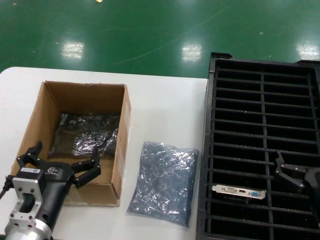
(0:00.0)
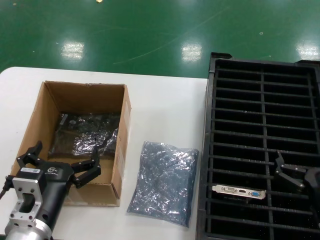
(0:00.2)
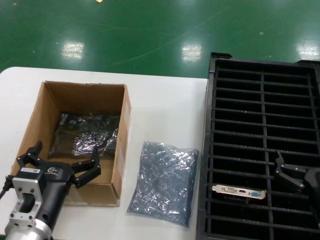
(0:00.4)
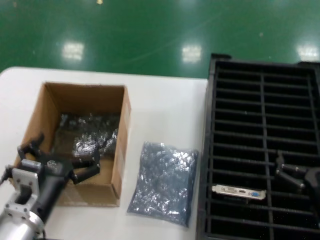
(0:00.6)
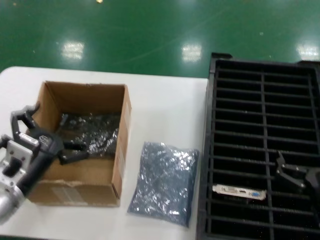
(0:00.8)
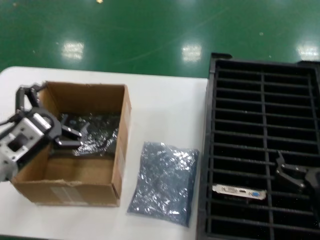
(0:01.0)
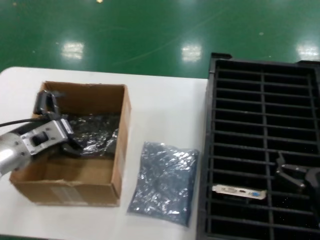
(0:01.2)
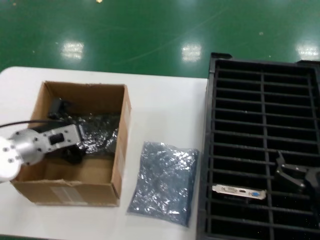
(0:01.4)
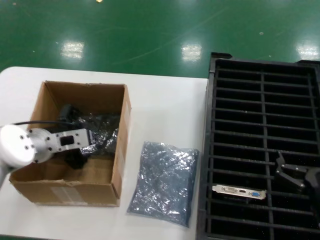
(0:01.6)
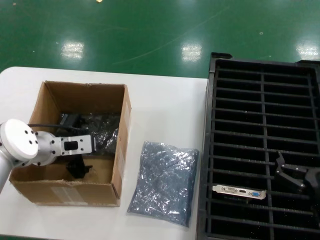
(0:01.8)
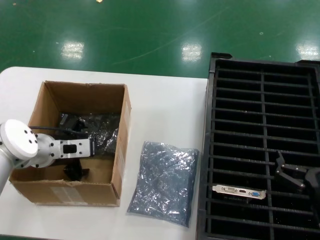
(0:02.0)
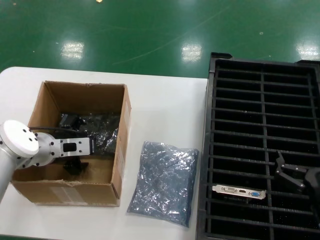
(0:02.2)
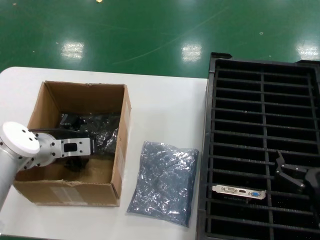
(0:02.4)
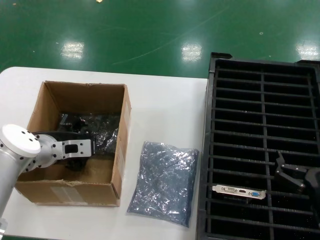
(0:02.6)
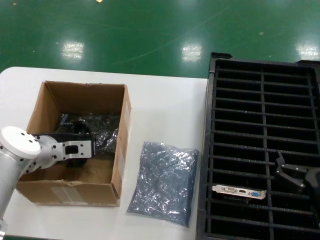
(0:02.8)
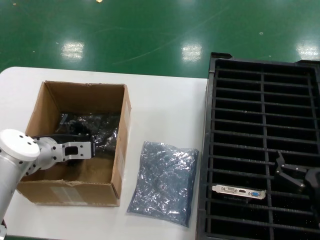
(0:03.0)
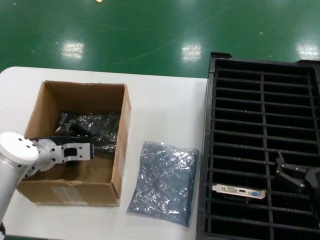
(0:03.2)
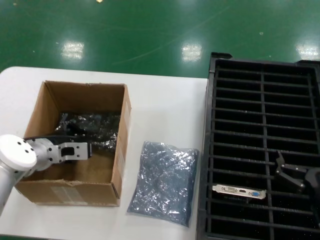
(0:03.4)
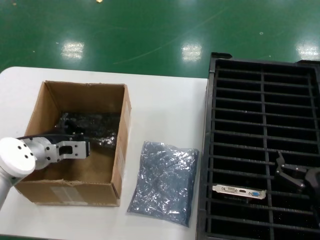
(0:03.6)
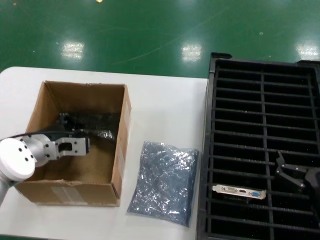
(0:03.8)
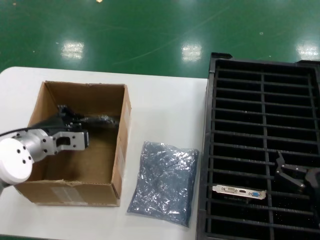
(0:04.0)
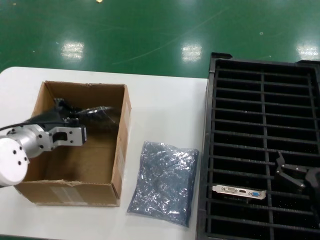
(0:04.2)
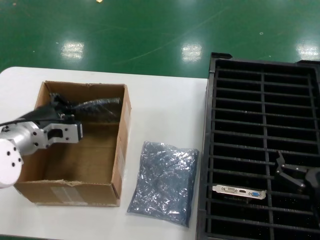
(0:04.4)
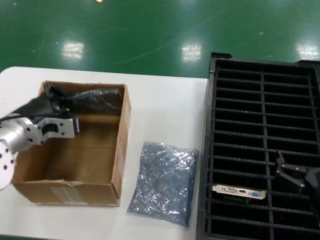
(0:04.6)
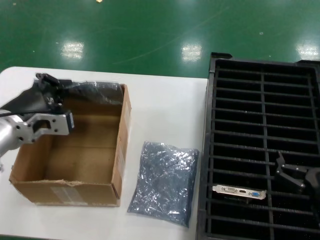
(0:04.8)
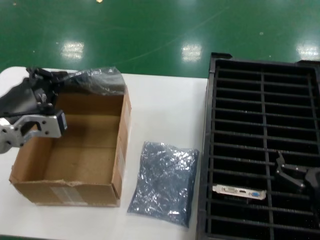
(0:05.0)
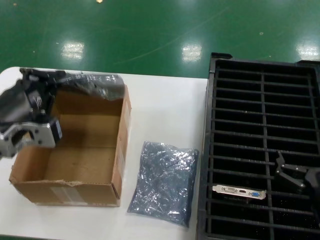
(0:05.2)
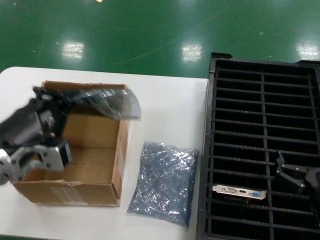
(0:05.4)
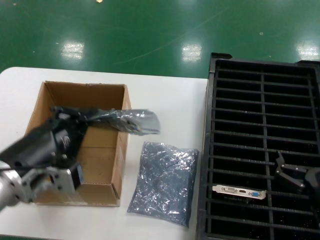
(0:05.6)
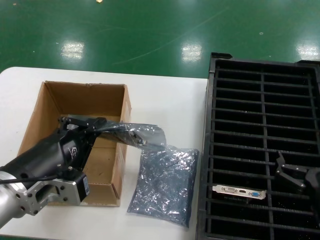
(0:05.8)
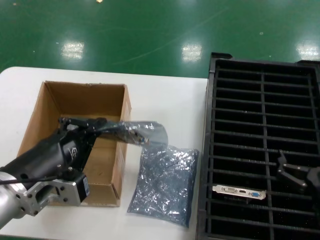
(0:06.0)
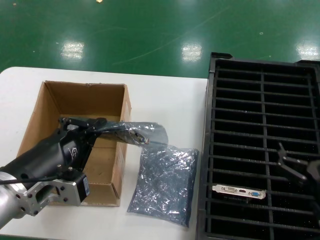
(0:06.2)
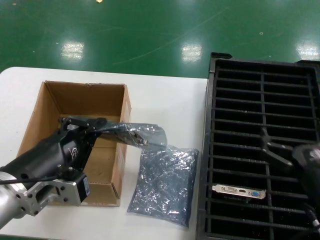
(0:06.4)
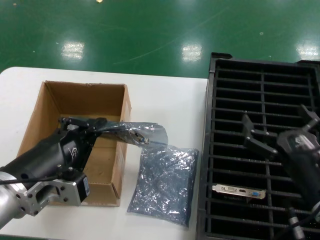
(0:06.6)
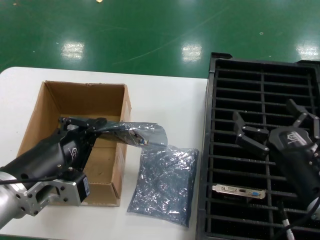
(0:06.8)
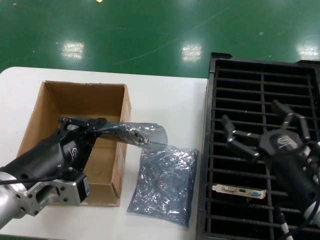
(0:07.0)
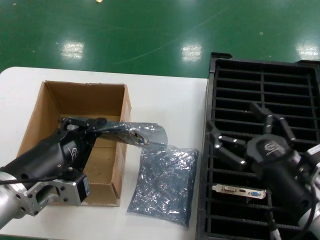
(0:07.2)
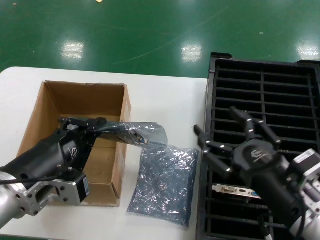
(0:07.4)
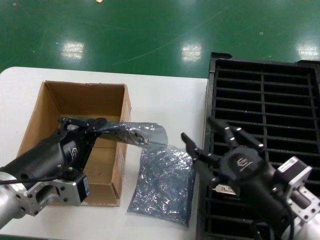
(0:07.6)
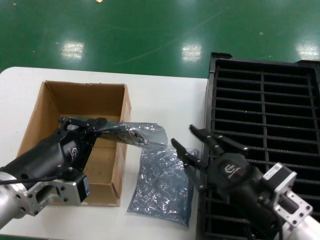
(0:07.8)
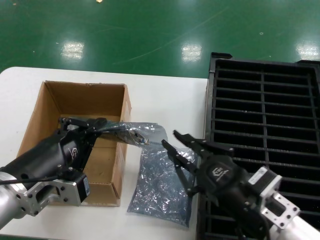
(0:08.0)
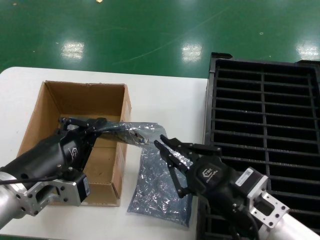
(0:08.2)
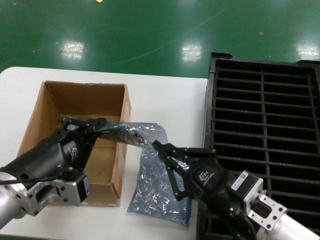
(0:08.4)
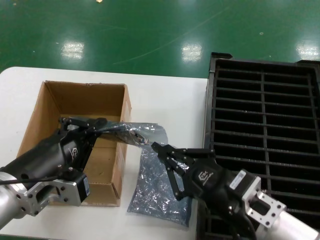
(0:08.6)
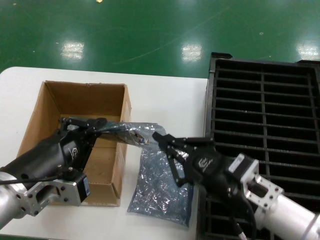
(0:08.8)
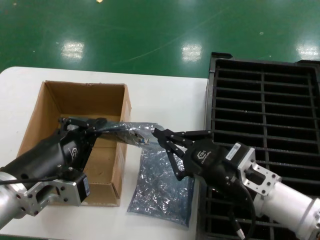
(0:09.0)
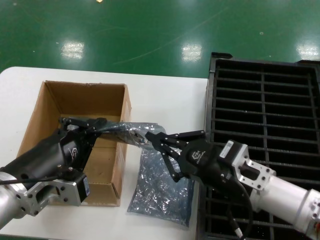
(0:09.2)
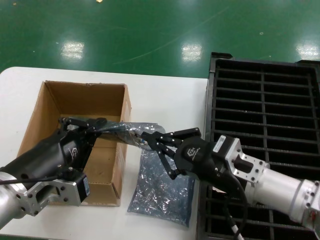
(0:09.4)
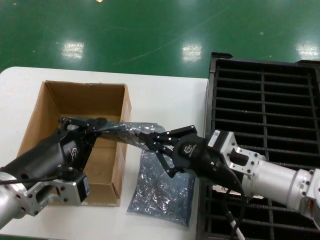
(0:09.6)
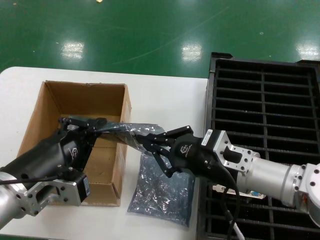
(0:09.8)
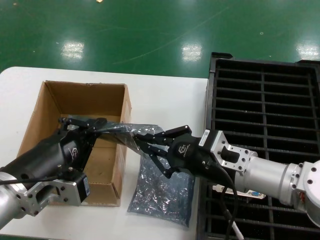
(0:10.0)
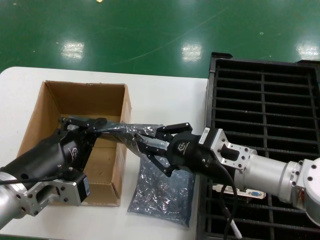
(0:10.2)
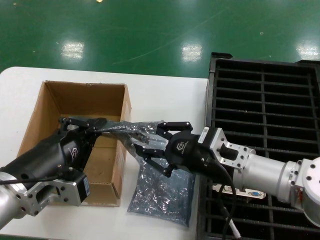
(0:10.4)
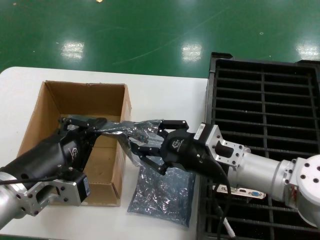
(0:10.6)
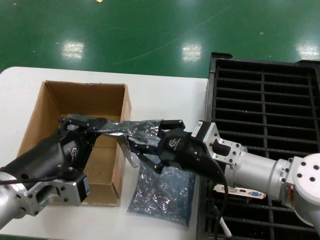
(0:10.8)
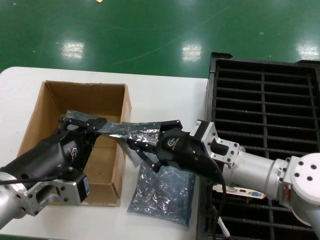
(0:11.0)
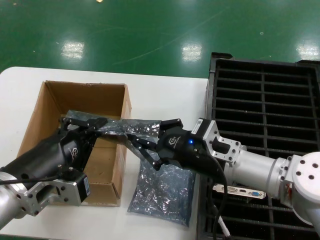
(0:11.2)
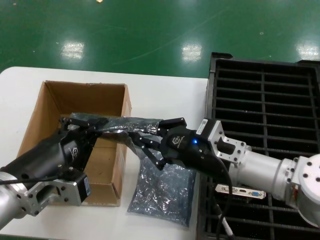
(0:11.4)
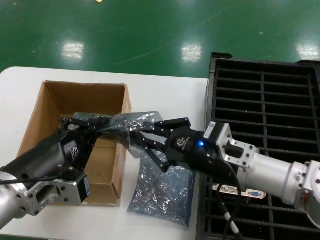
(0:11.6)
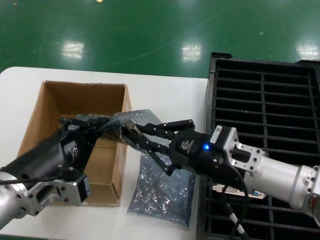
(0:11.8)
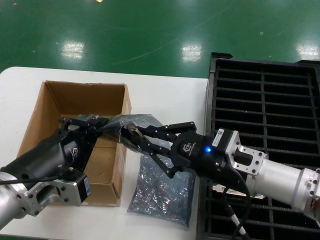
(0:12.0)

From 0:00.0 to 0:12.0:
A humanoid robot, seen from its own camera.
Task of the whole recording: take out graphics card from box remove packaging put into black container.
Step, from 0:00.0 to 0:03.2: Grasp the bag.
Step, from 0:03.4 to 0:05.8: Lift the bag.
From 0:00.0 to 0:01.6: The left hand is displaced forward by some 20 cm.
From 0:01.6 to 0:03.0: There are only small adjustments of the hands.
From 0:03.0 to 0:04.4: The left hand goes about 10 cm upward and backward.
From 0:04.4 to 0:06.0: The left hand heads backward, covering about 20 cm.
From 0:06.0 to 0:07.6: The right hand is displaced to the left and upward by roughly 10 cm.
From 0:07.6 to 0:09.0: The right hand travels forward by some 5 cm.
From 0:09.0 to 0:10.4: The right hand travels forward by roughly 5 cm.
From 0:10.4 to 0:12.0: The hands move only a little.

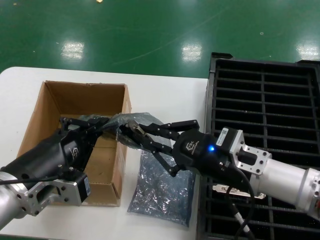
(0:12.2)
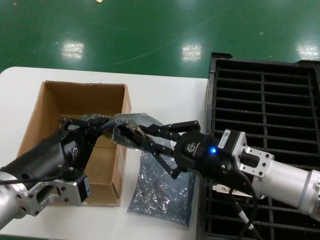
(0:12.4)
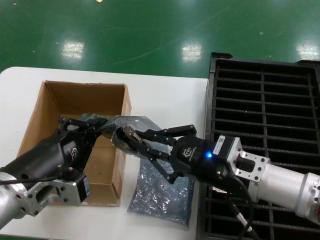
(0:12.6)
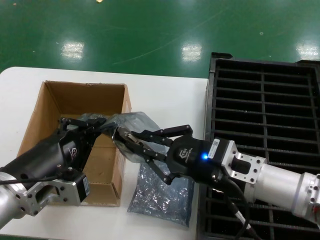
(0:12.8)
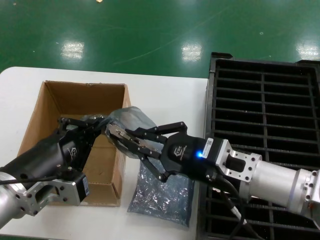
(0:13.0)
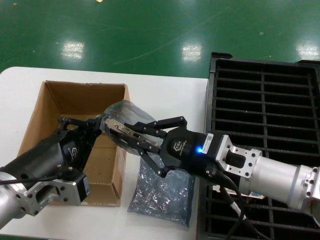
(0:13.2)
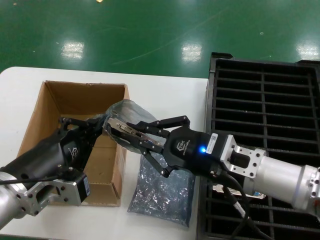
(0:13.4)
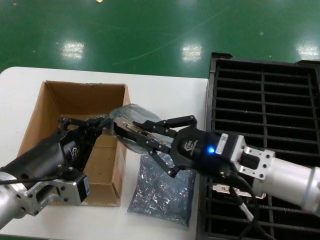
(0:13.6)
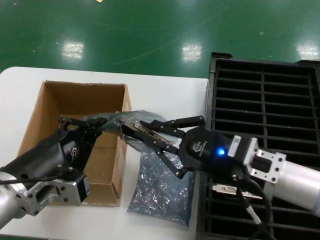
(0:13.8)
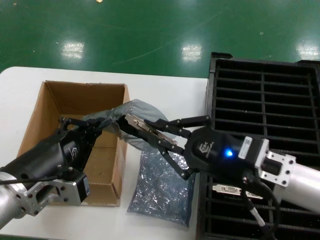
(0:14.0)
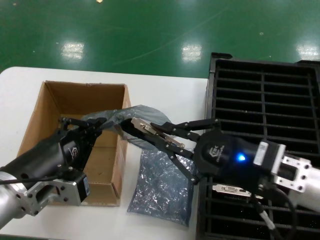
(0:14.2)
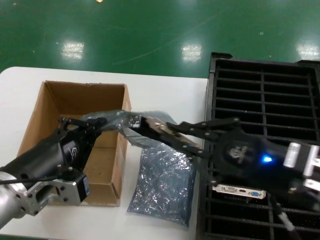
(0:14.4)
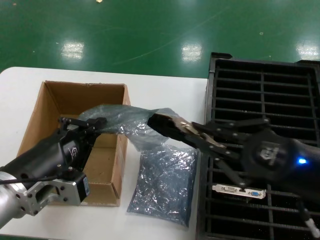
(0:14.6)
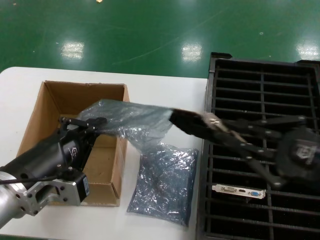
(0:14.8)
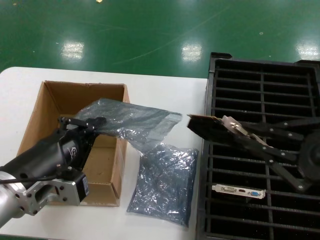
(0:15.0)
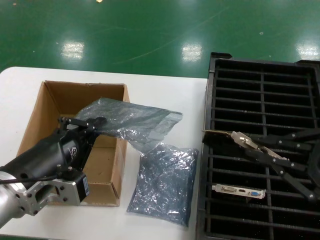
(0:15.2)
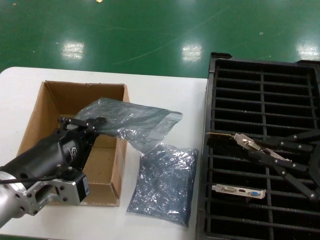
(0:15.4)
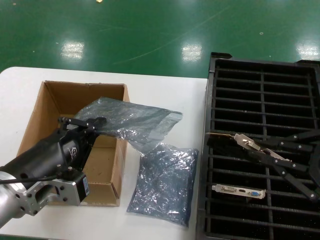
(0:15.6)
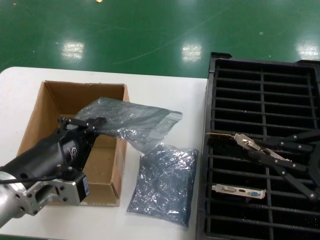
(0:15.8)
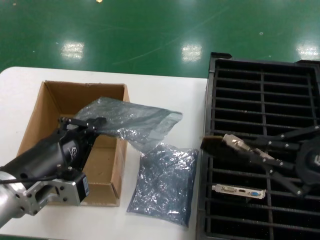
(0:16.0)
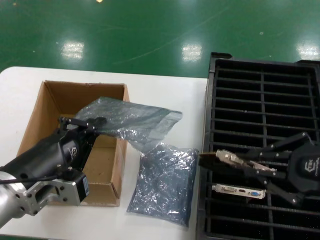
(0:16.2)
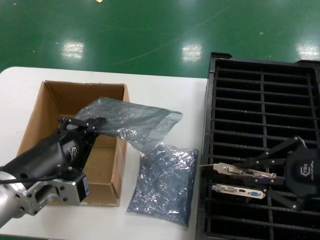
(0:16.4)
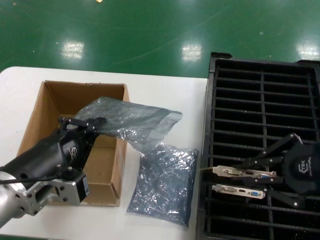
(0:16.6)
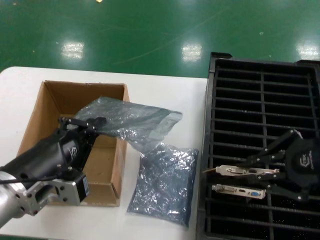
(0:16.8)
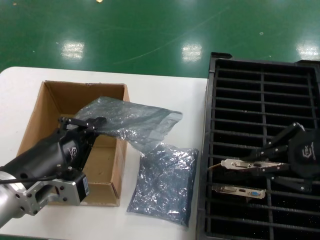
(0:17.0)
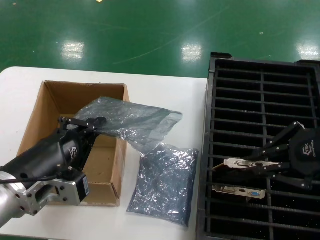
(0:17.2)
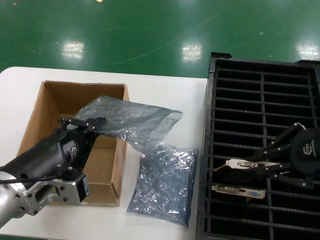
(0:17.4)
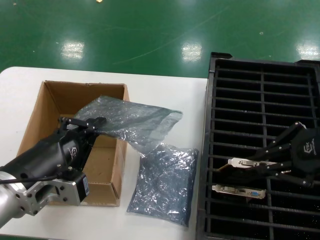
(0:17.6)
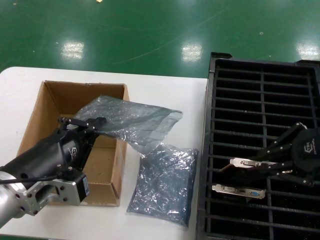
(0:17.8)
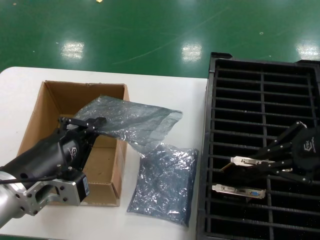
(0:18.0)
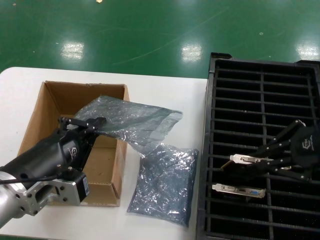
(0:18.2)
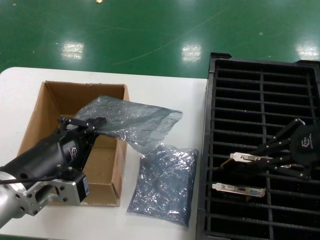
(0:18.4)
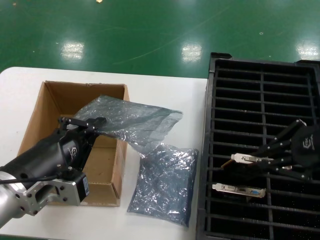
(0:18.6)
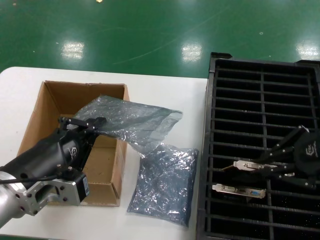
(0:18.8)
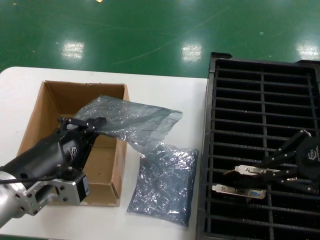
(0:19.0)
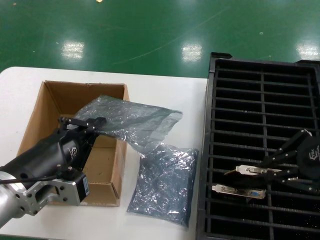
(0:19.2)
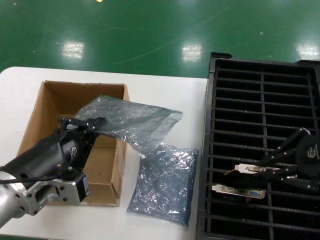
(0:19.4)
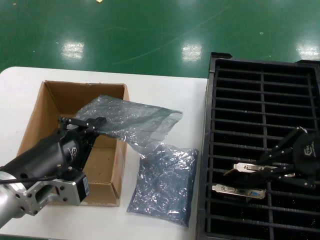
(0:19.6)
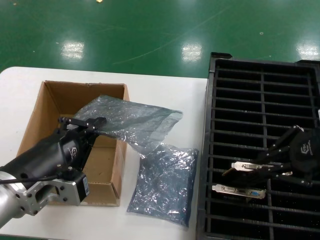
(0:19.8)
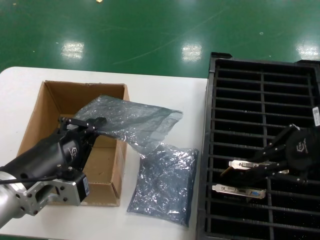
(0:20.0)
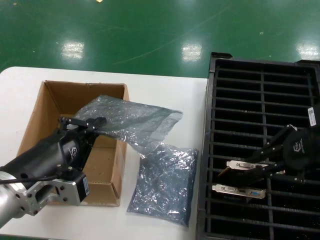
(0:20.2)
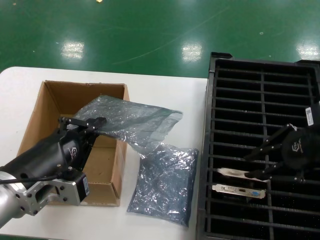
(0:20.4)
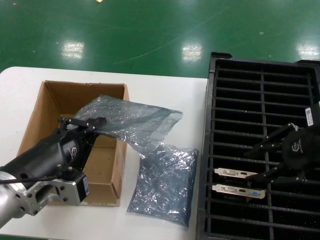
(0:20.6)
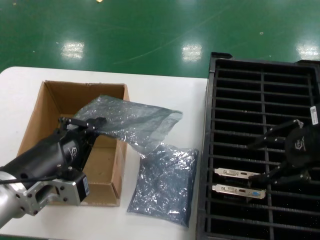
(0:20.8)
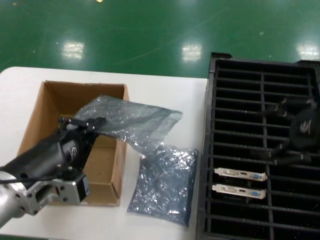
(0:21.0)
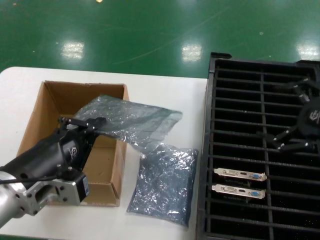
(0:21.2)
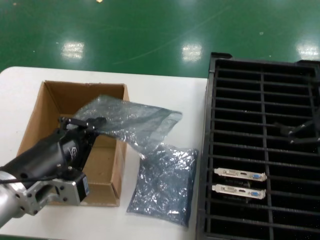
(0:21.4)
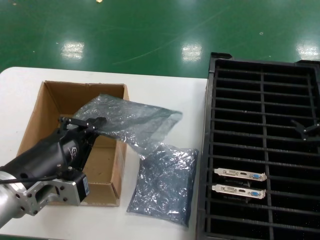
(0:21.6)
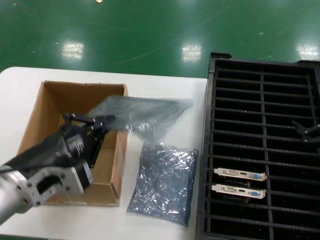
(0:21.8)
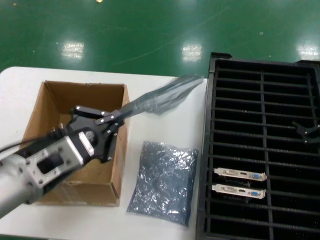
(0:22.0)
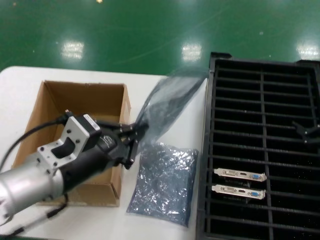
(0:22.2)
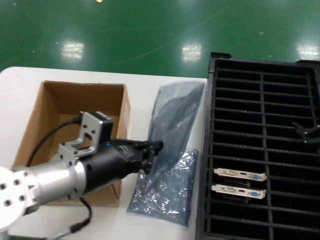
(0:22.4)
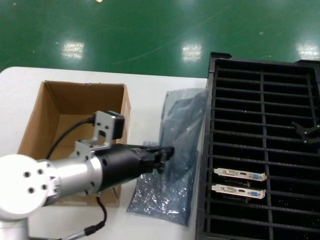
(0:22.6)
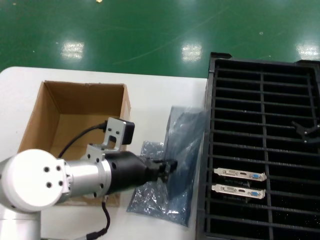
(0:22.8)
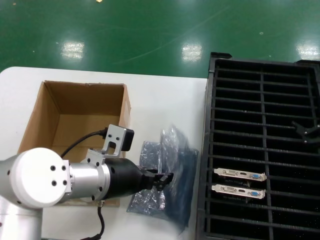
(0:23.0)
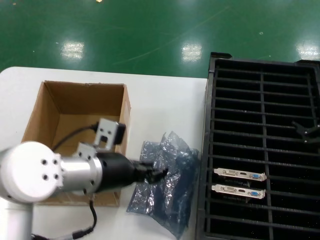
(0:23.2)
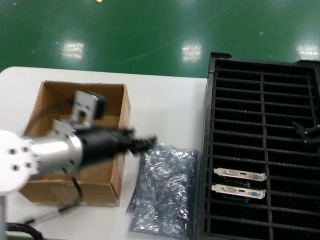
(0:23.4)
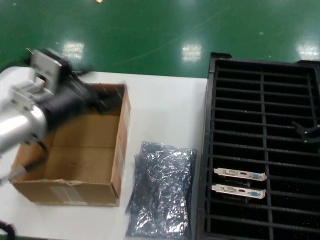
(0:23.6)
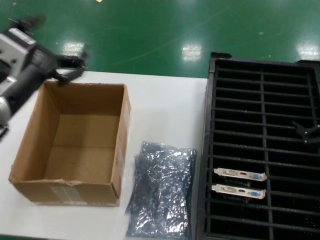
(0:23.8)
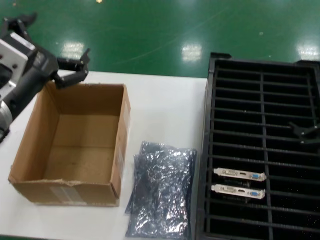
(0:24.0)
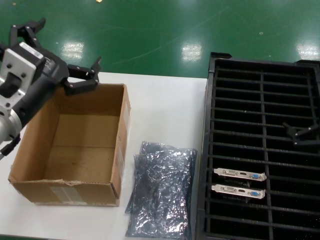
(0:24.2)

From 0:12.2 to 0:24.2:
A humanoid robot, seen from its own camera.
Task of the whole recording: take out graphics card from box remove packaging put into black container.
Step, from 0:12.2 to 0:14.8: Take out the hard disk of the bag.
Step, from 0:15.2 to 0:20.4: Place the hard disk in the hard disk enclosure.
From 0:12.2 to 0:13.8: The hands stay close to where they were, moving slightly.
From 0:13.8 to 0:15.2: The right hand is displaced to the right, backward and upward by about 20 cm.
From 0:15.2 to 0:16.6: The right hand changes place by about 5 cm.
From 0:16.6 to 0:18.2: The right hand is displaced forward by roughly 10 cm.
From 0:18.2 to 0:19.8: The hands stay close to where they were, moving slightly.
From 0:21.2 to 0:22.6: The right hand shifts by approximately 5 cm; the left hand moves forward and to the right, approximately 10 cm.
From 0:22.6 to 0:24.2: The left hand goes roughly 10 cm upward and to the left.
